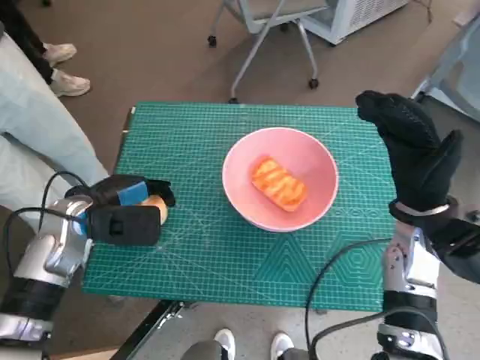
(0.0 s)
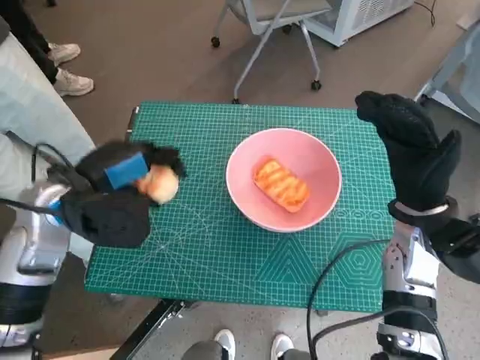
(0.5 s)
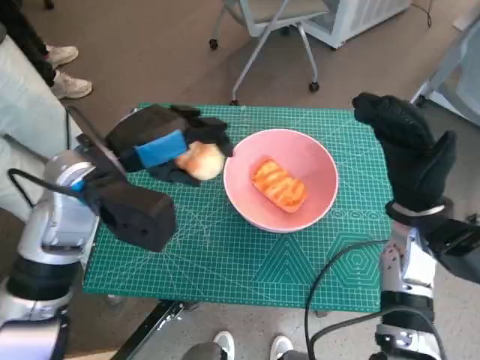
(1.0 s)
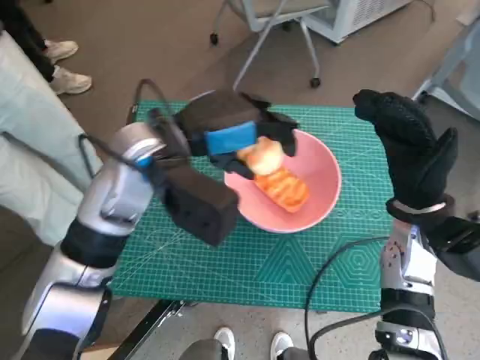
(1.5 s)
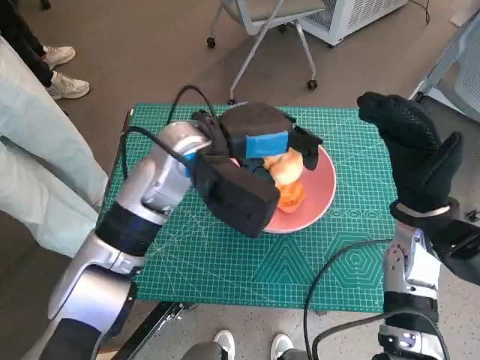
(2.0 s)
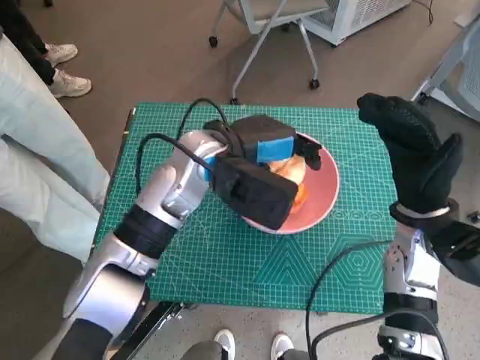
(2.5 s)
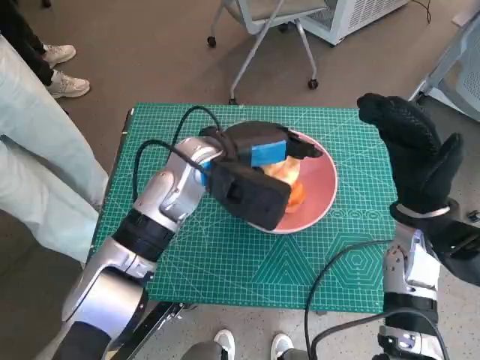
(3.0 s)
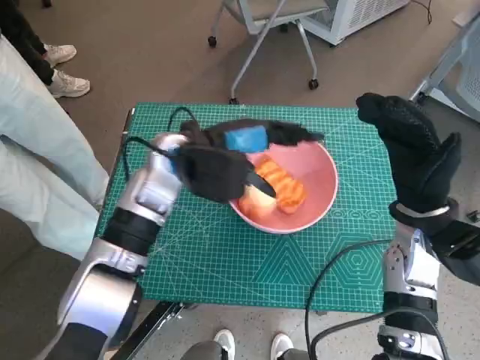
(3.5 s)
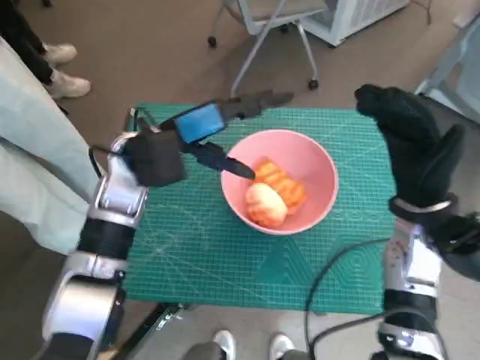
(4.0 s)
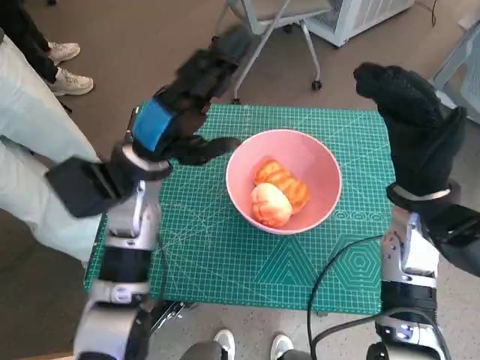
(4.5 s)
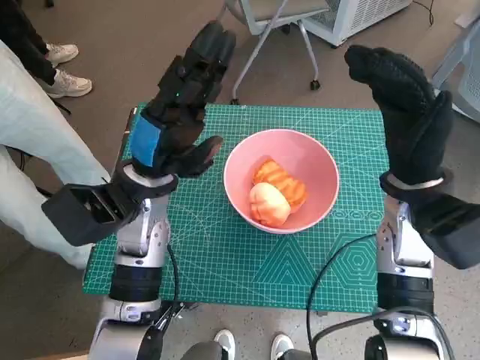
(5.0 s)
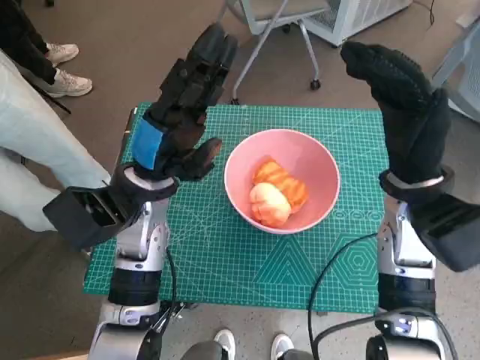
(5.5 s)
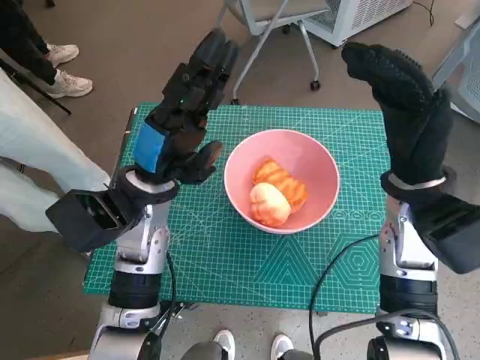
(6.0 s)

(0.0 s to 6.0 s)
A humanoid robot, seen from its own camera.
Task of the whole recording: Push the bowl into the center of the table and put the bread into the bowl.
Step, 0.0 s - 3.5 s: Place the round bread in pink bowl with left hand.
0.0 s - 2.0 s: The left hand moves to the right and upward, approximately 20 cm.
2.0 s - 4.0 s: The left hand moves to the left, some 5 cm.
4.0 s - 6.0 s: The right hand changes place by approximately 5 cm; the left hand shifts by approximately 5 cm.

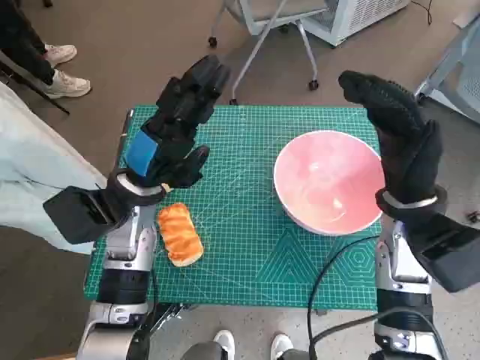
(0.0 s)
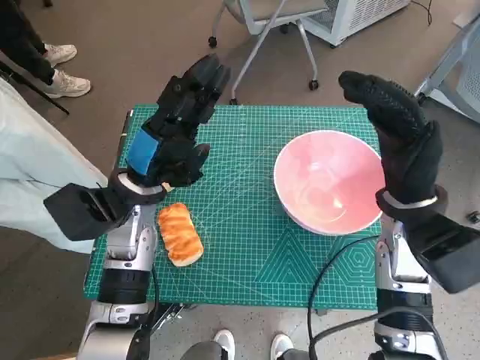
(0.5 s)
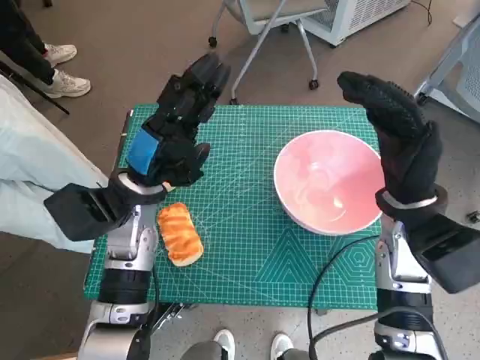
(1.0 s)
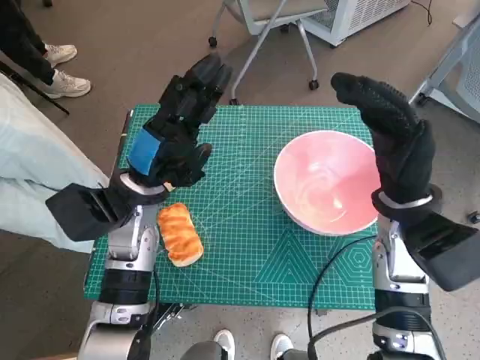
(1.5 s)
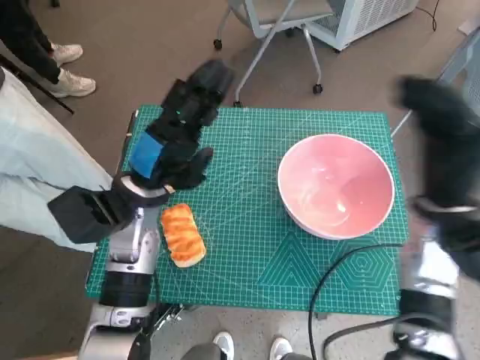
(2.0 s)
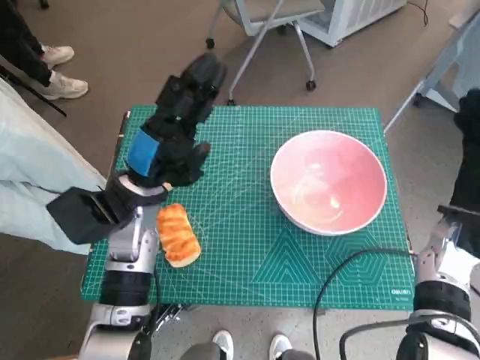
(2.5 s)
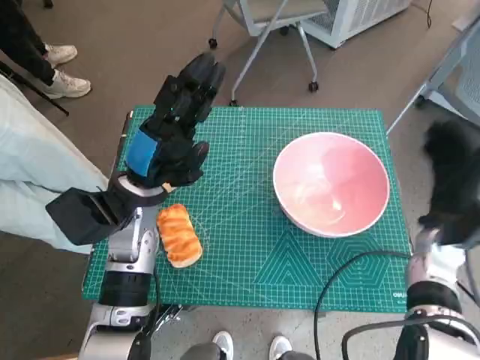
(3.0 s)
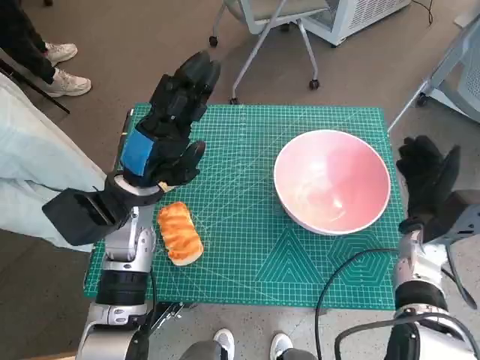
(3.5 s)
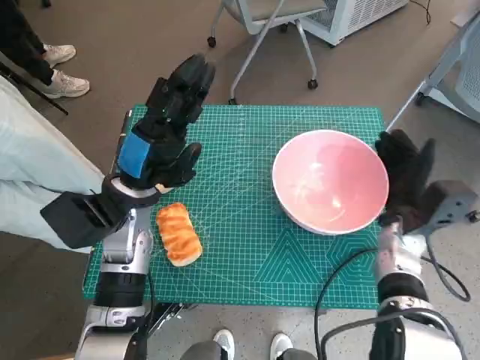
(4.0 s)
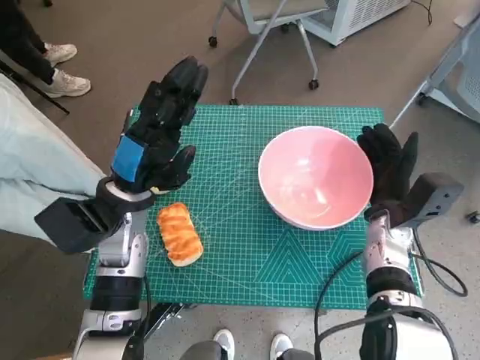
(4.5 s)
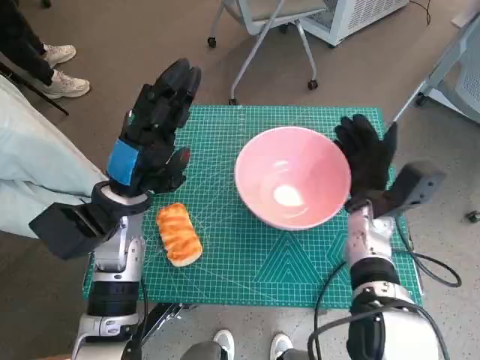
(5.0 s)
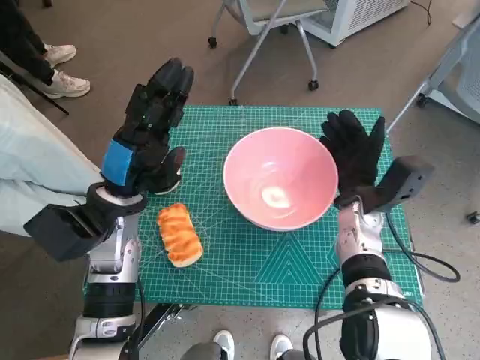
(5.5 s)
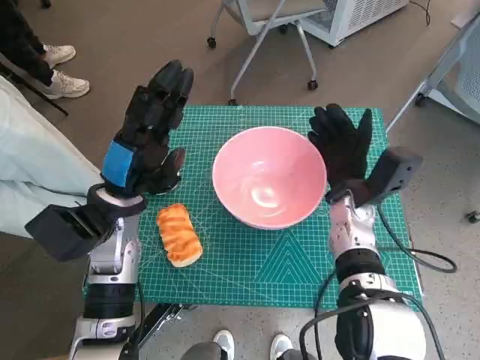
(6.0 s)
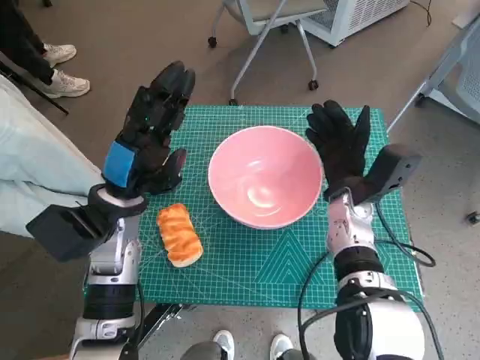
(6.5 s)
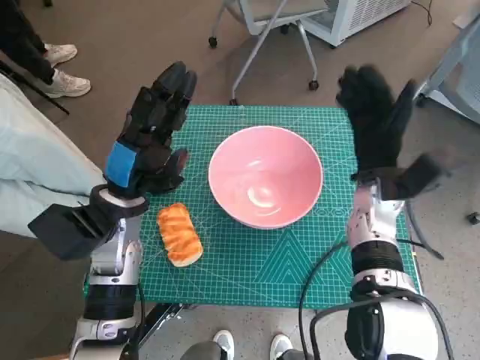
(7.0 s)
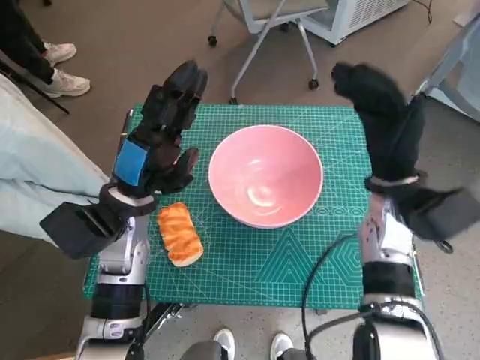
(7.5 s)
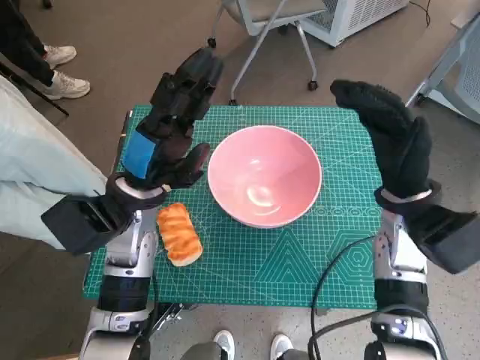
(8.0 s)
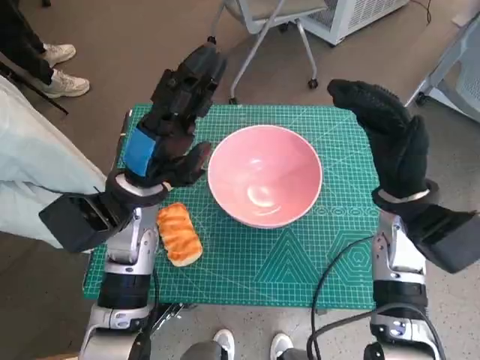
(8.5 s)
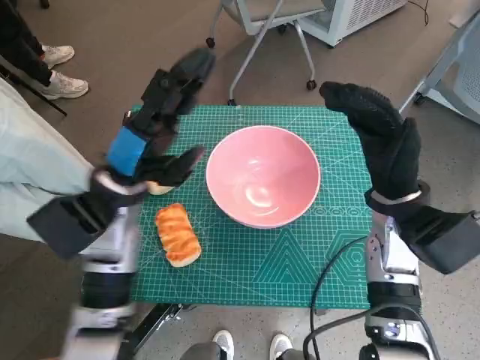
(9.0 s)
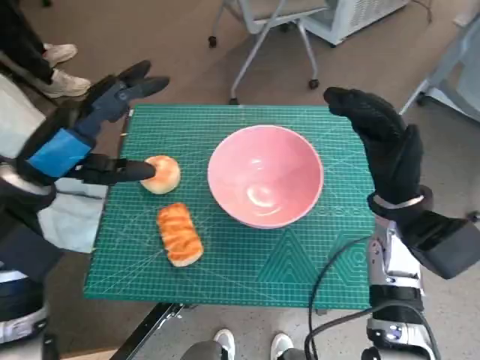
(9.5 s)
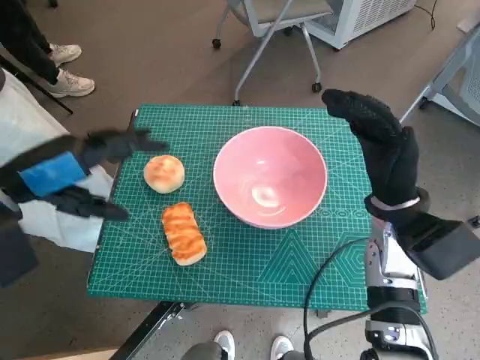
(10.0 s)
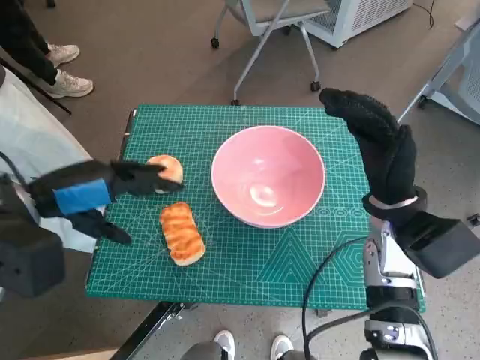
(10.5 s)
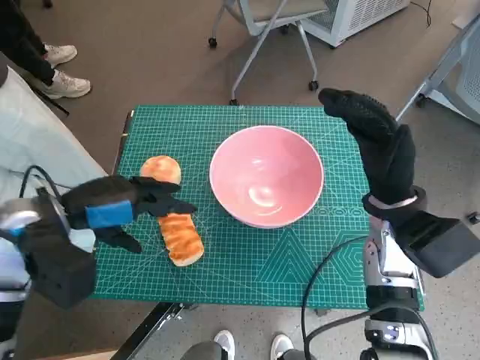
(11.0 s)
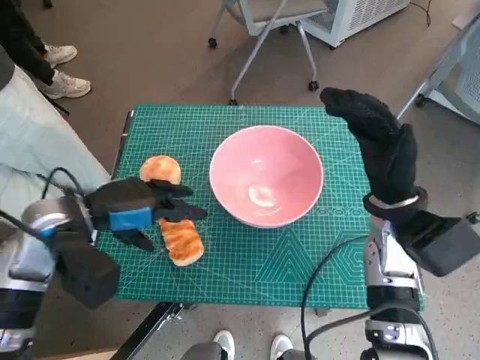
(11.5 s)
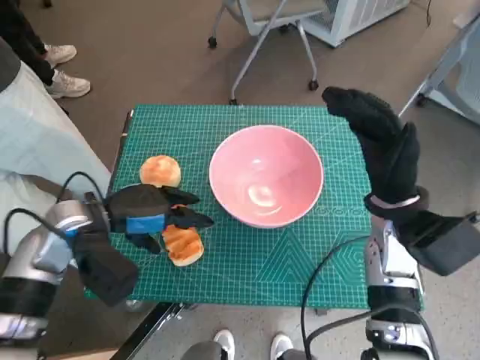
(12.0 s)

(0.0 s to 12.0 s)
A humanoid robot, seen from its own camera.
Task of the whole recording: Push the bowl into the center of the table and put the bread into the bowl.
Step, 0.0 s - 7.0 s: Move the pink bowl to the center of table with right hand.
2.0 s - 4.0 s: The right hand moves downward, approximately 10 cm.
4.0 s - 6.0 s: The right hand goes about 10 cm to the left.
6.0 s - 8.0 s: The right hand travels upward by some 5 cm.
8.0 s - 10.0 s: The left hand goes about 15 cm to the left, upward and backward.
10.0 s - 12.0 s: The left hand is displaced downward by roughly 10 cm.

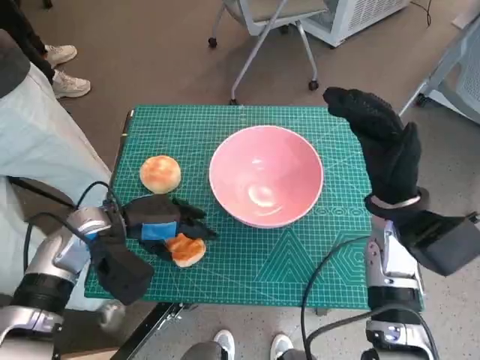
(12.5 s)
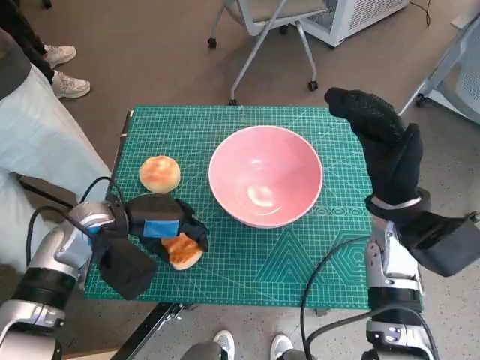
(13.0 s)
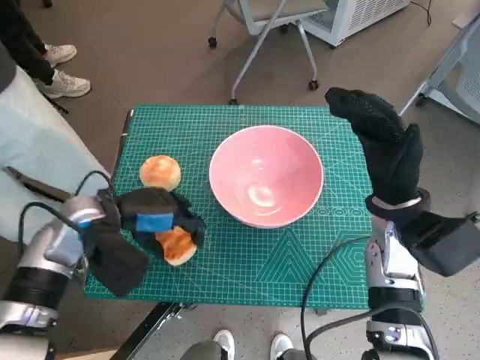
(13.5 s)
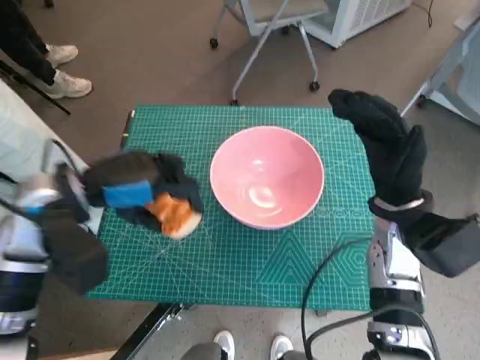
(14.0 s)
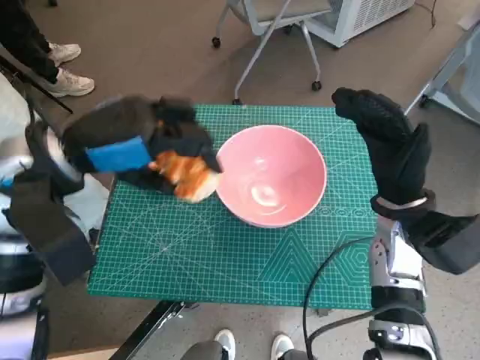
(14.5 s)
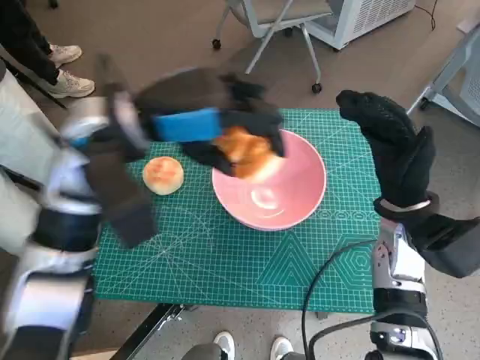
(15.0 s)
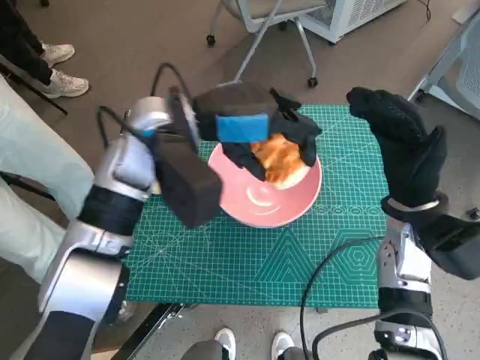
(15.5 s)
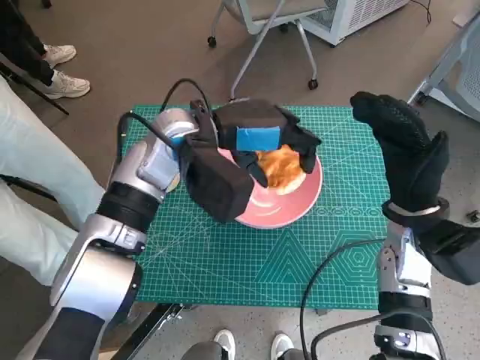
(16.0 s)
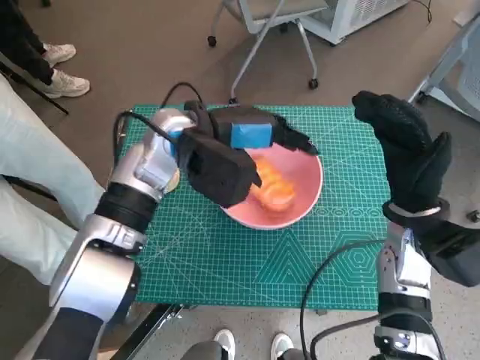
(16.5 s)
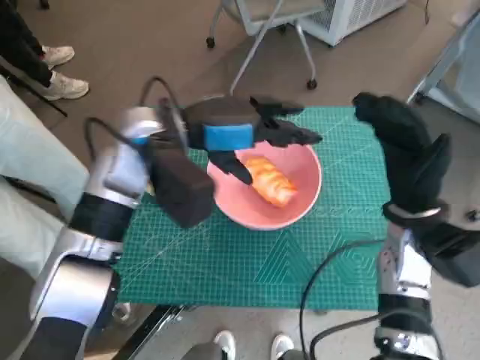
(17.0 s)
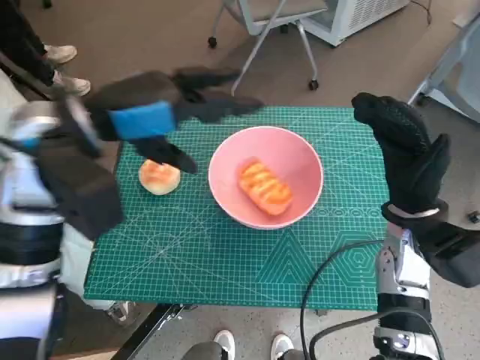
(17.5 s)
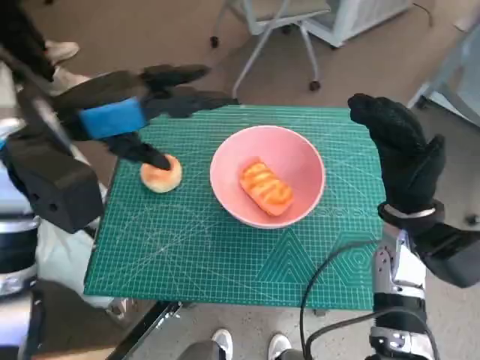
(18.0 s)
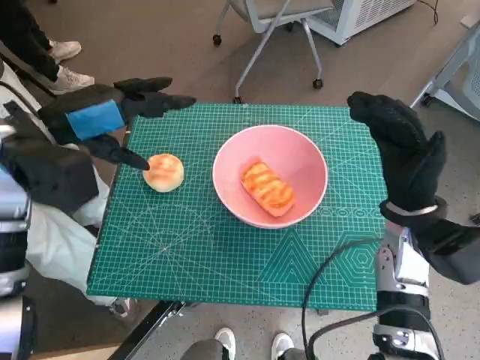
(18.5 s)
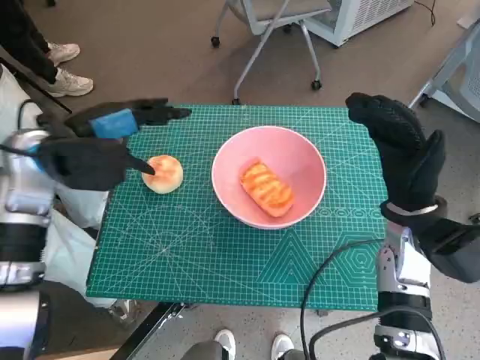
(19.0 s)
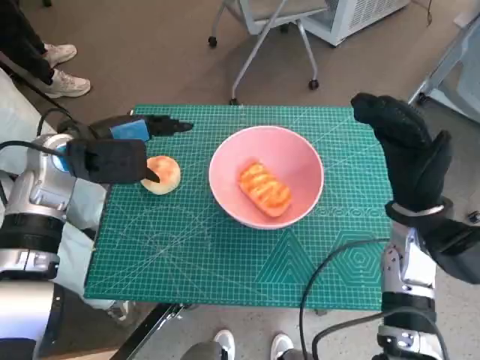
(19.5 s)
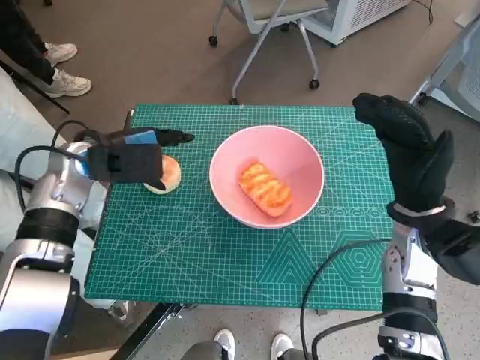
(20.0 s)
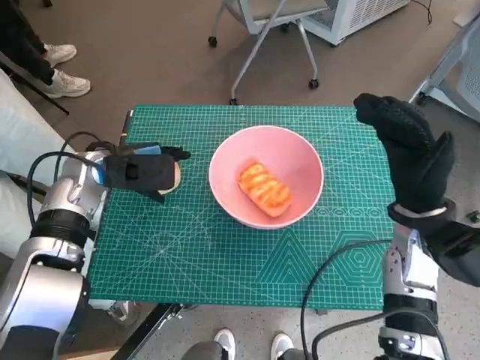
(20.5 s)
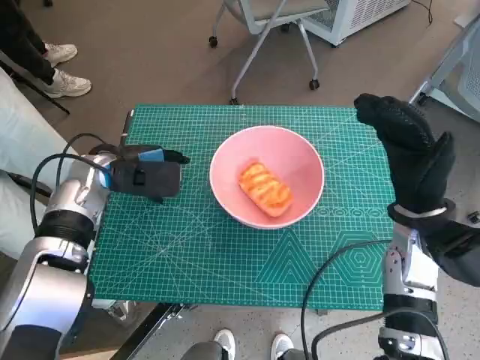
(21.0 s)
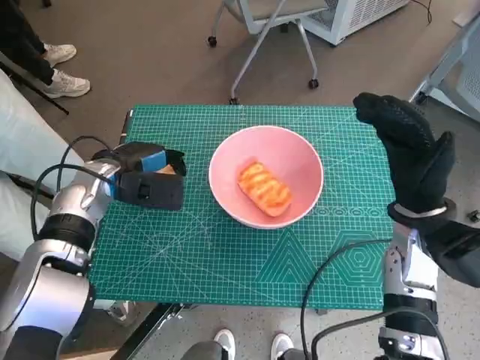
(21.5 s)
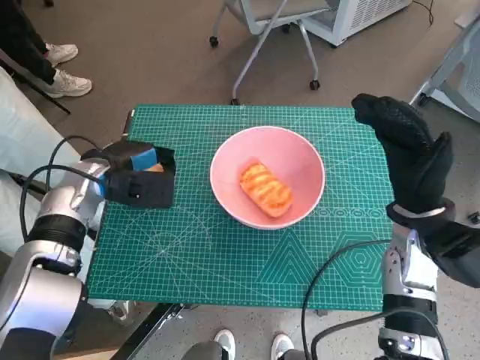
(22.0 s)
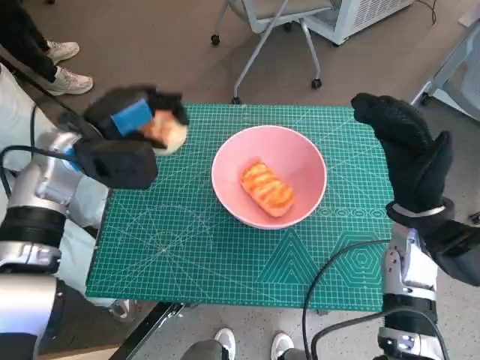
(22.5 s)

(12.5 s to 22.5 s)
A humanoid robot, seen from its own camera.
Task of the whole recording: Push the bowl into the center of the table and put the bread into the bowl.
Step, 13.5 s - 17.0 s: Place the long bread in pink bowl with left hand.
Step, 17.5 s - 21.5 s: Grasp the round bread with left hand.
12.5 s - 14.5 s: The left hand heads upward, covering approximately 15 cm.
14.5 s - 16.5 s: The left hand travels to the right and forward by roughly 15 cm.
16.5 s - 18.5 s: The left hand heads to the left, covering roughly 15 cm.
18.5 s - 20.5 s: The left hand moves downward and forward, roughly 10 cm.
20.5 s - 22.5 s: The left hand travels upward by some 5 cm.
